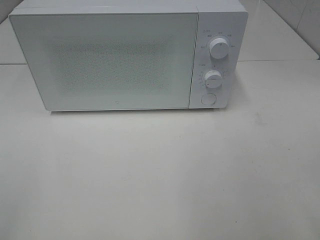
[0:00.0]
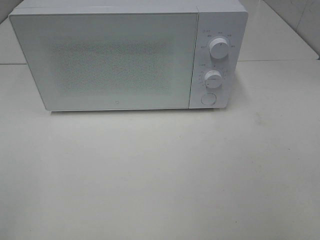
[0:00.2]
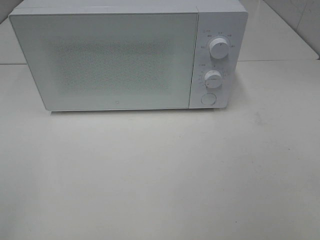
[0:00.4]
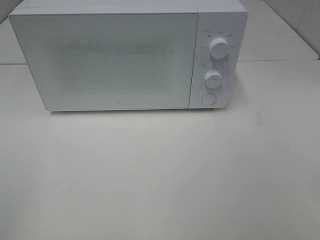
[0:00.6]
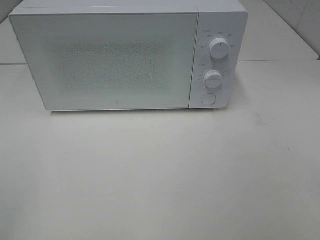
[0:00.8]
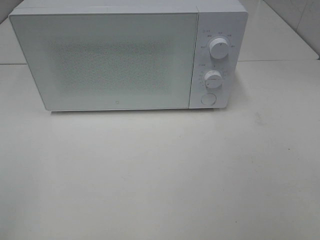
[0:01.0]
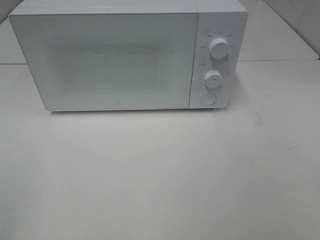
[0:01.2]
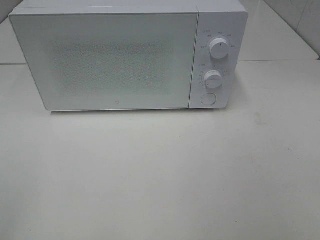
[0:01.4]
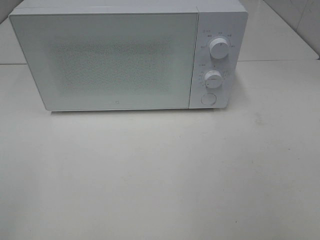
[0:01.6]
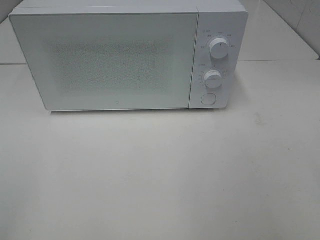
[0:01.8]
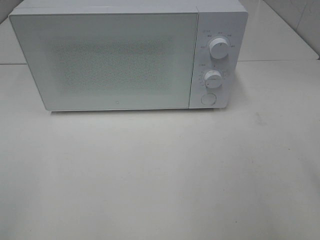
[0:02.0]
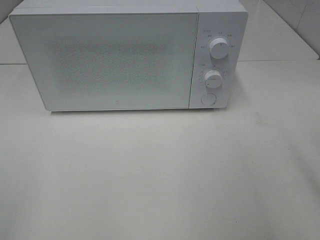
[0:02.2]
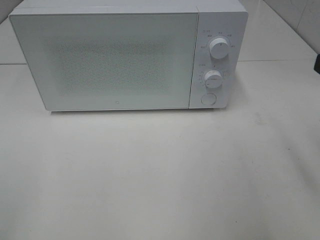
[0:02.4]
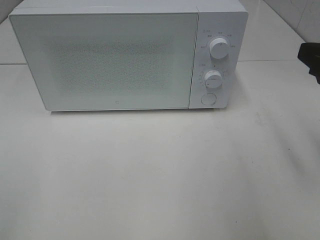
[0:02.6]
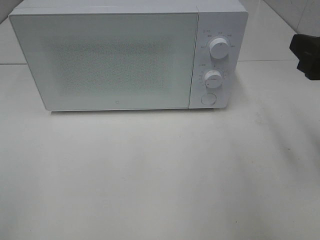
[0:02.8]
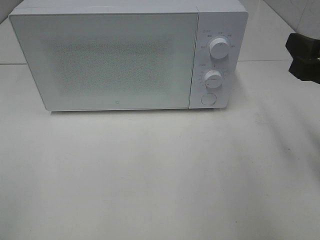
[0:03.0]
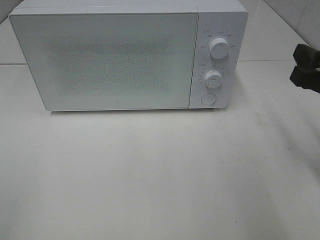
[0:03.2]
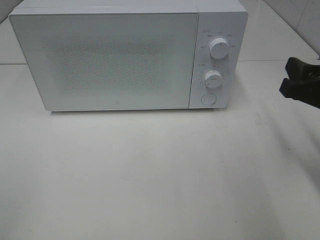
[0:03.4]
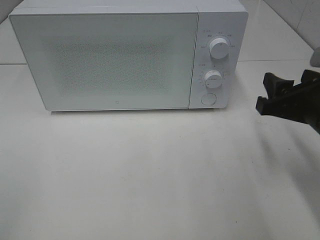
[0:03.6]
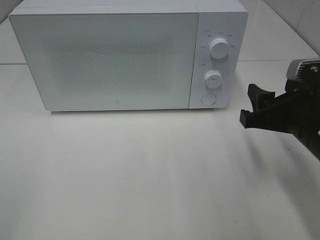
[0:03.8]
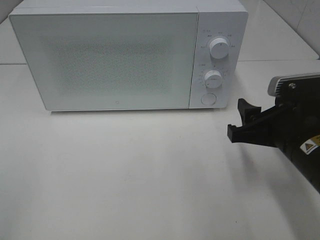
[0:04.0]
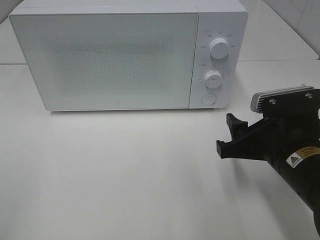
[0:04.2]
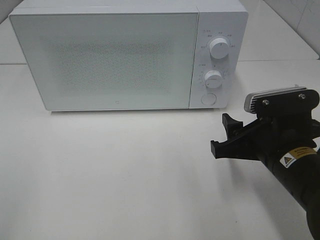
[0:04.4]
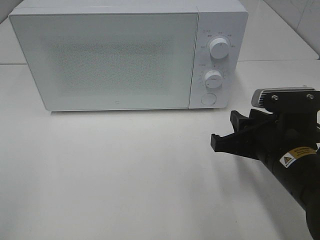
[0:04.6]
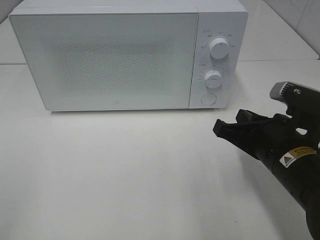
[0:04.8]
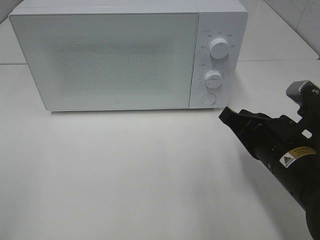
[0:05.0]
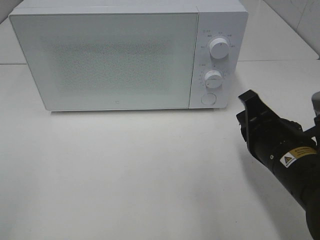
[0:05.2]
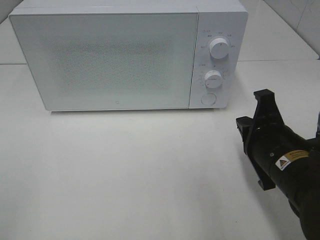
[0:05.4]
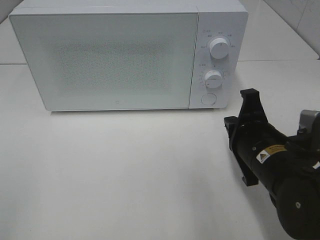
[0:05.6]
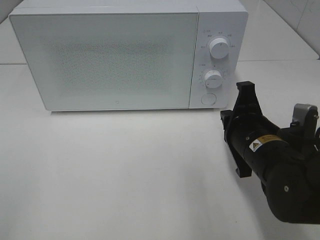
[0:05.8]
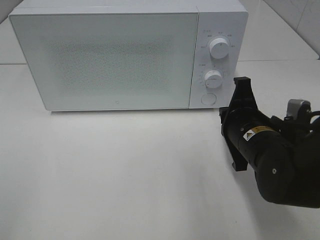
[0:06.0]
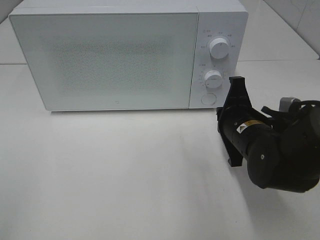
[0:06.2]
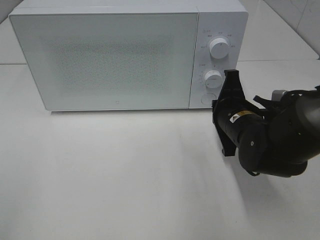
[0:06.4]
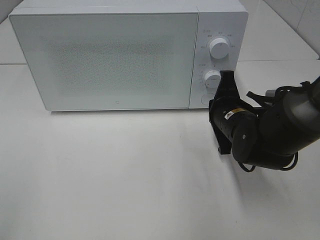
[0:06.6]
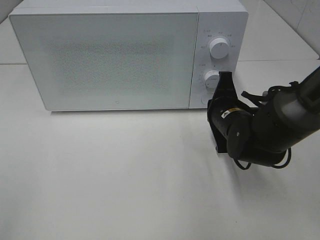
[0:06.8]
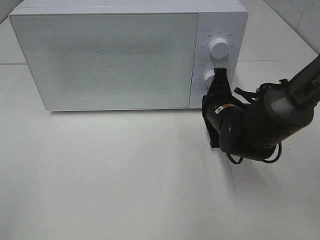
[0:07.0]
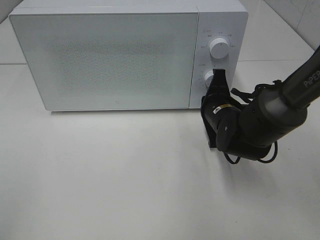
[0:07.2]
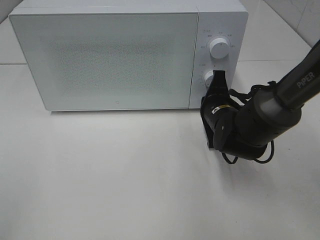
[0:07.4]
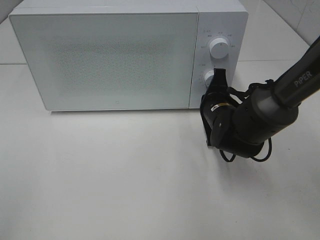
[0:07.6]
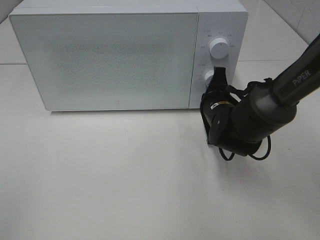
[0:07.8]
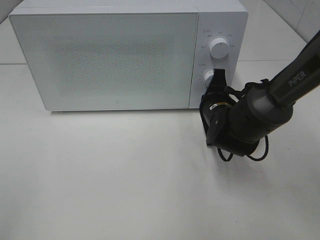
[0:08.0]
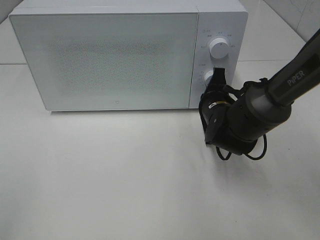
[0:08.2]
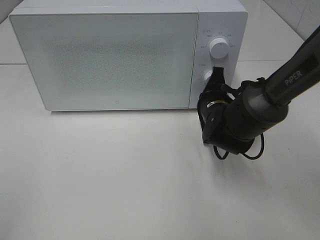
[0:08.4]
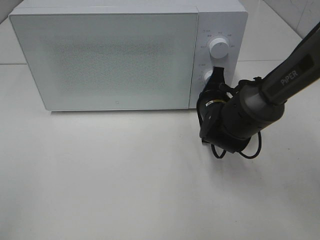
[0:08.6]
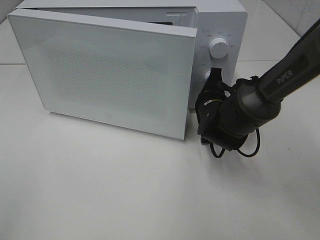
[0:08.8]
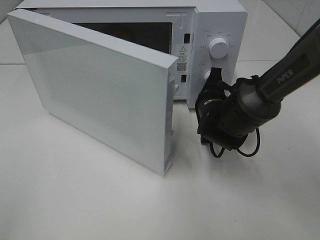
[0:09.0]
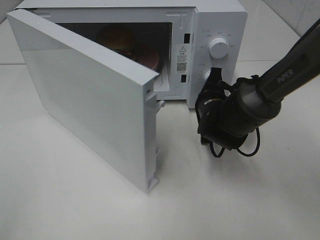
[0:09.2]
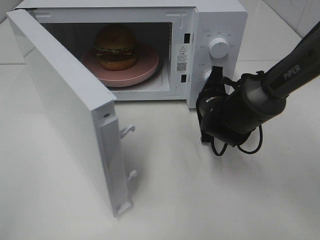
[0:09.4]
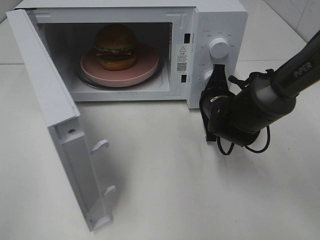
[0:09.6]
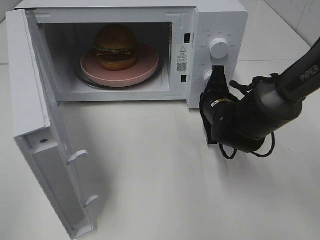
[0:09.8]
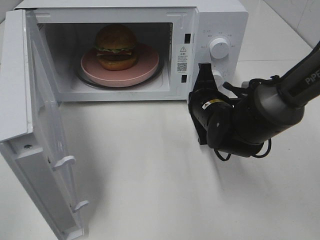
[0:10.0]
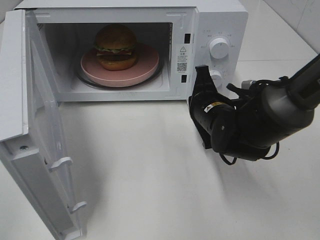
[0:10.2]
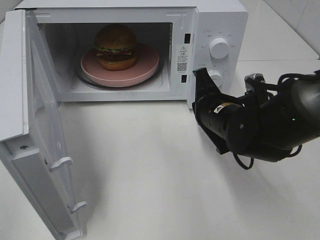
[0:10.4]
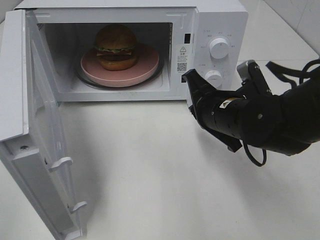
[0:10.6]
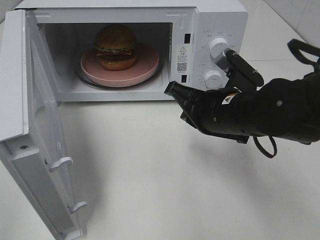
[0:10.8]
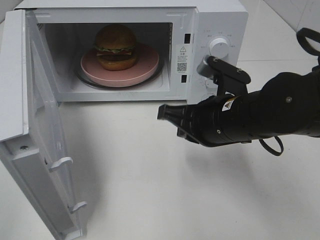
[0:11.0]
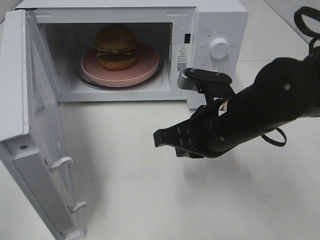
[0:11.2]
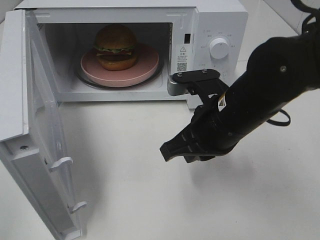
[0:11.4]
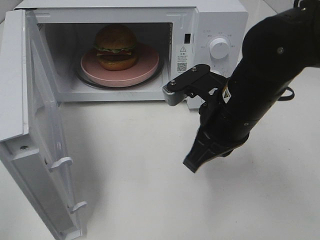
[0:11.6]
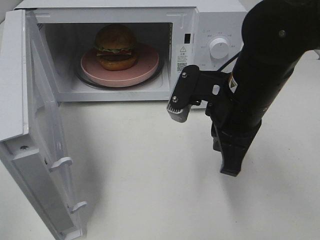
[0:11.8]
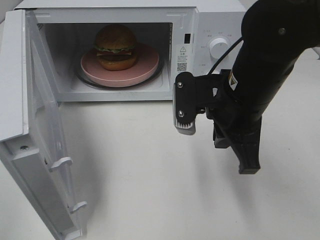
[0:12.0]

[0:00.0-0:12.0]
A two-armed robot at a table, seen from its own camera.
Task of the whole recording: Heat the burger.
Step, 0:00.0 to 0:09.8: Right hand: press the switch.
0:01.6 to 0:03.0: The right gripper moves forward, some 20 cm.
0:03.0 to 0:04.4: The right gripper shifts roughly 15 cm downward and to the left.
0:04.4 to 0:06.0: The right gripper is displaced forward by about 5 cm, and closes its fingers.
0:06.0 to 0:07.6: The right gripper shifts some 10 cm forward.
0:09.0 to 0:10.4: The right gripper travels backward by about 5 cm.
0:10.4 to 0:12.0: The right gripper moves upward, approximately 10 cm.

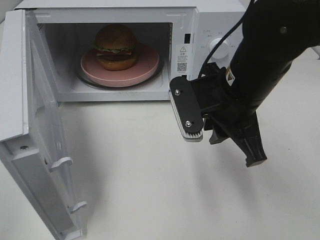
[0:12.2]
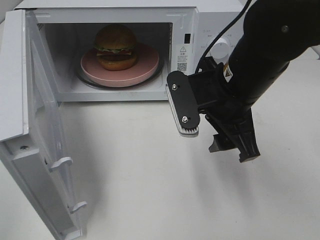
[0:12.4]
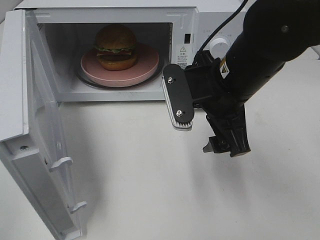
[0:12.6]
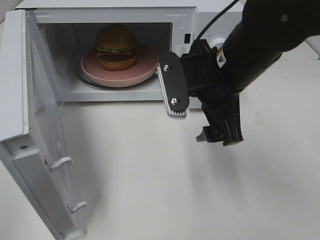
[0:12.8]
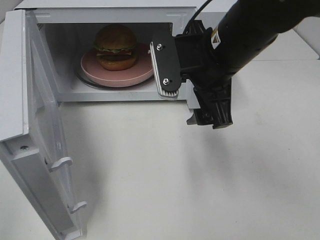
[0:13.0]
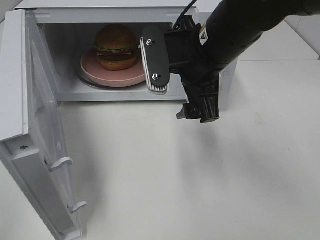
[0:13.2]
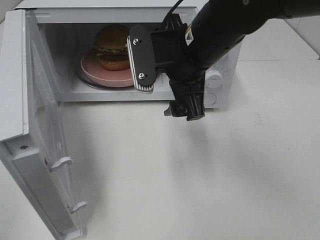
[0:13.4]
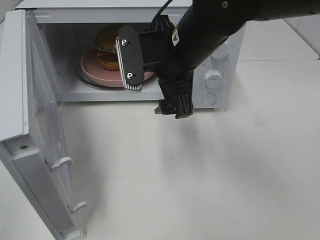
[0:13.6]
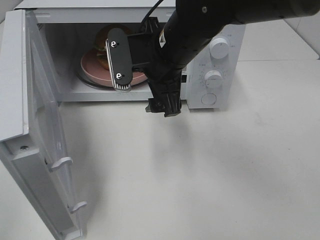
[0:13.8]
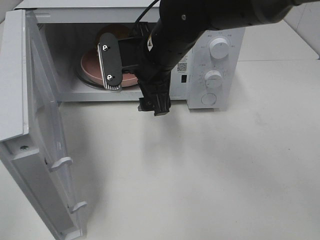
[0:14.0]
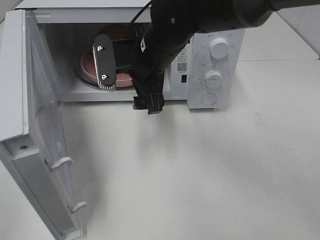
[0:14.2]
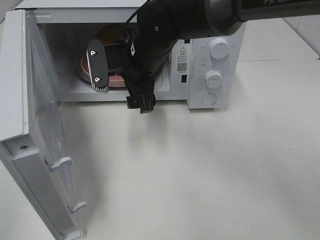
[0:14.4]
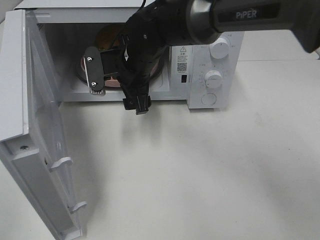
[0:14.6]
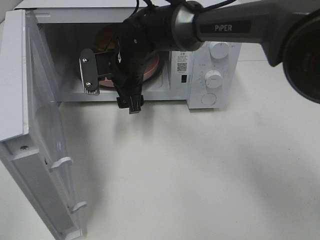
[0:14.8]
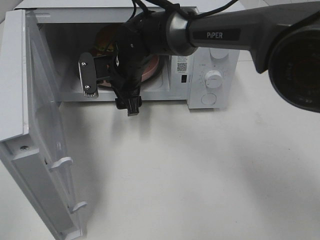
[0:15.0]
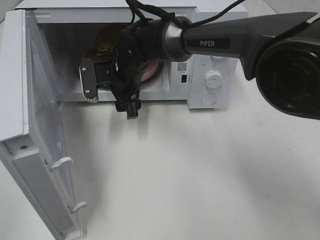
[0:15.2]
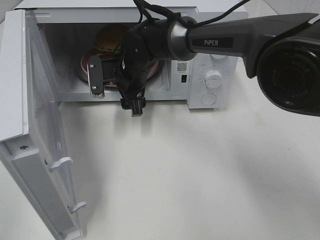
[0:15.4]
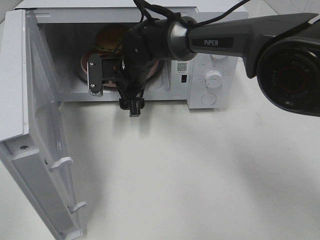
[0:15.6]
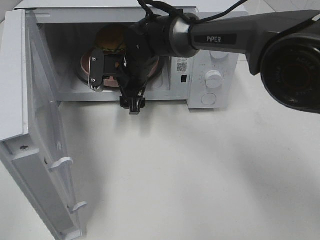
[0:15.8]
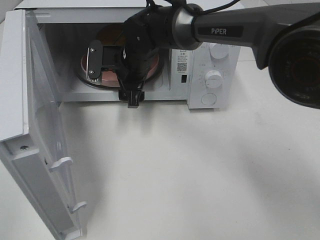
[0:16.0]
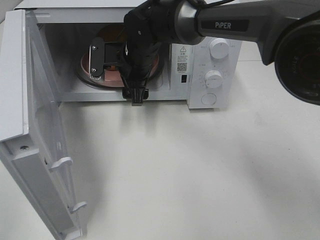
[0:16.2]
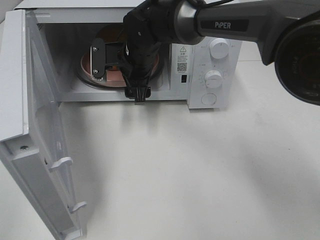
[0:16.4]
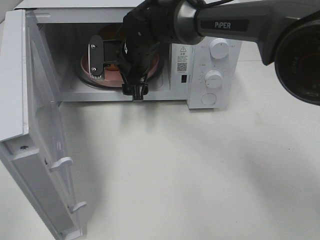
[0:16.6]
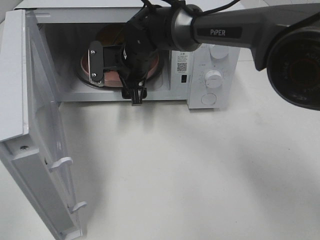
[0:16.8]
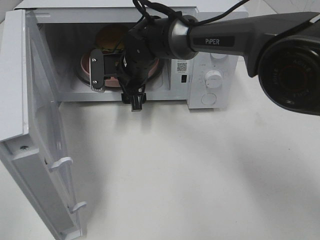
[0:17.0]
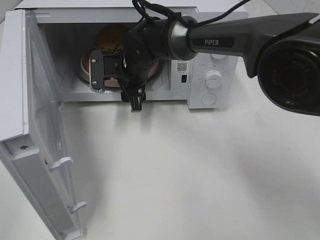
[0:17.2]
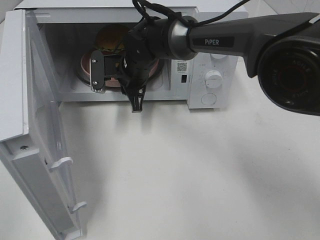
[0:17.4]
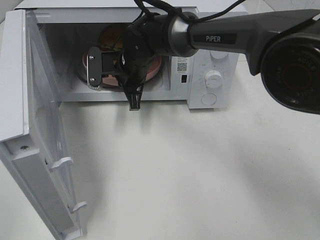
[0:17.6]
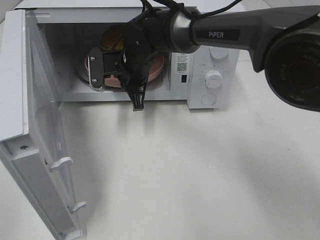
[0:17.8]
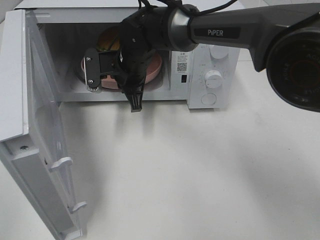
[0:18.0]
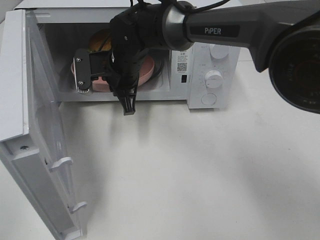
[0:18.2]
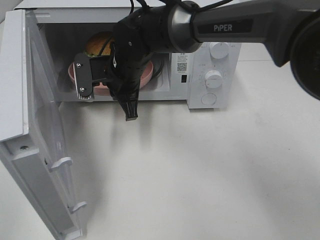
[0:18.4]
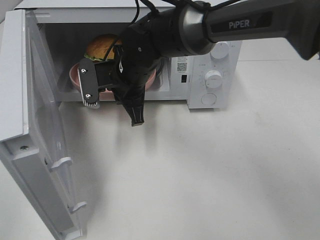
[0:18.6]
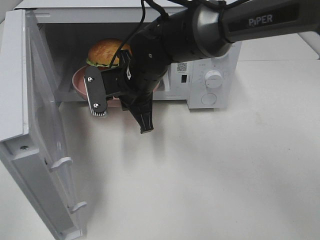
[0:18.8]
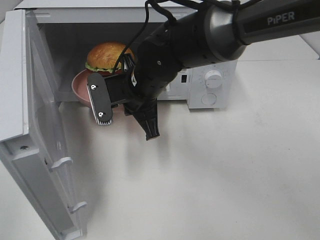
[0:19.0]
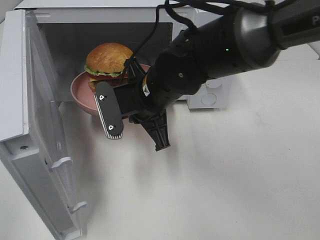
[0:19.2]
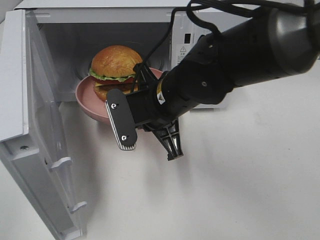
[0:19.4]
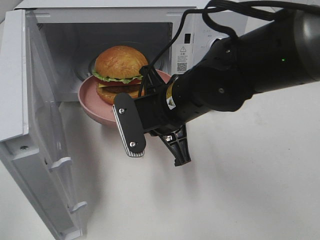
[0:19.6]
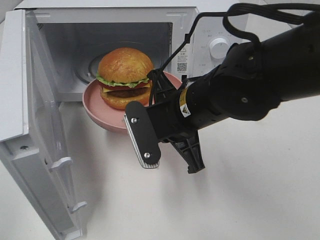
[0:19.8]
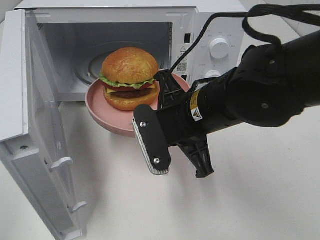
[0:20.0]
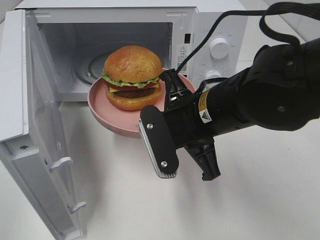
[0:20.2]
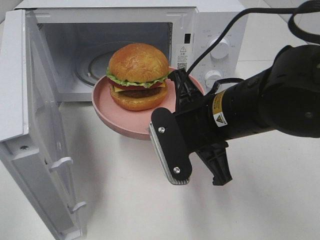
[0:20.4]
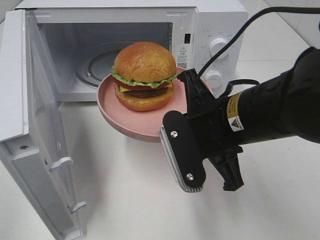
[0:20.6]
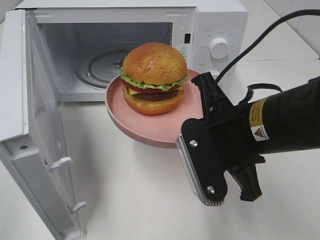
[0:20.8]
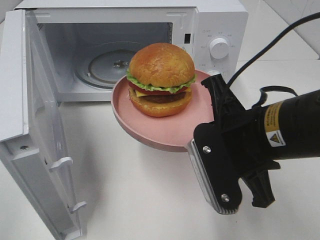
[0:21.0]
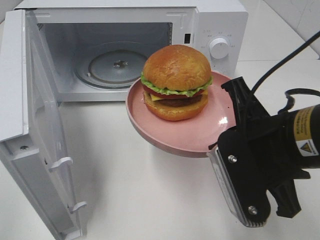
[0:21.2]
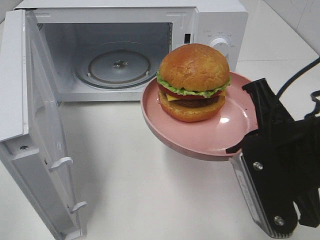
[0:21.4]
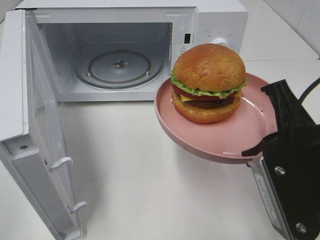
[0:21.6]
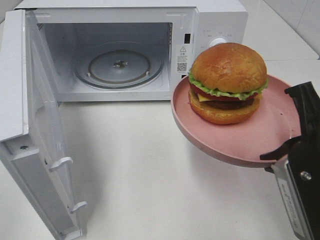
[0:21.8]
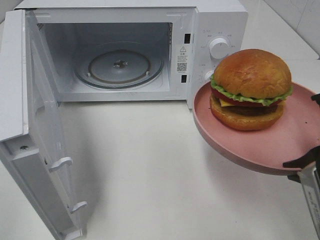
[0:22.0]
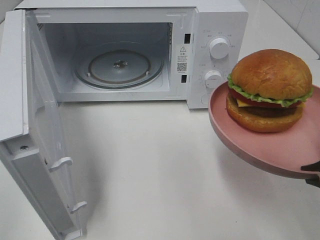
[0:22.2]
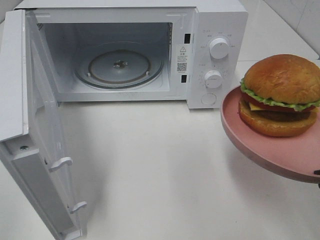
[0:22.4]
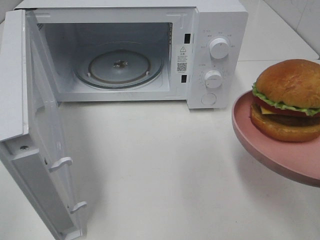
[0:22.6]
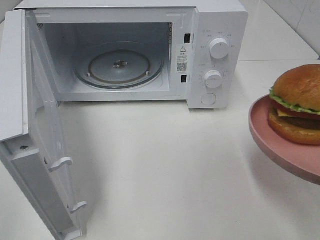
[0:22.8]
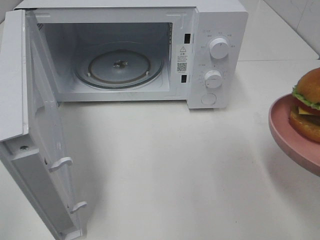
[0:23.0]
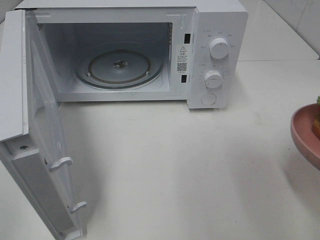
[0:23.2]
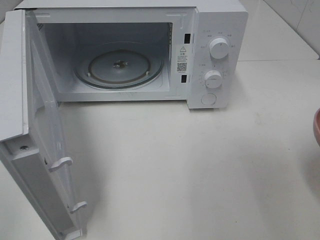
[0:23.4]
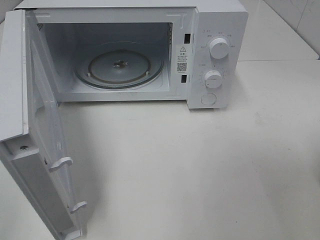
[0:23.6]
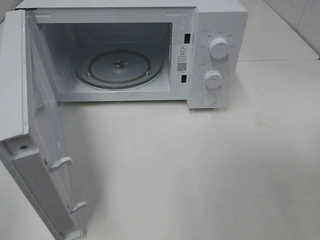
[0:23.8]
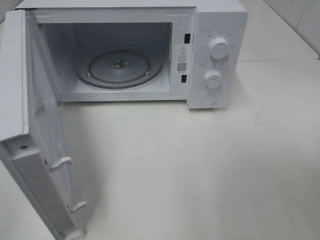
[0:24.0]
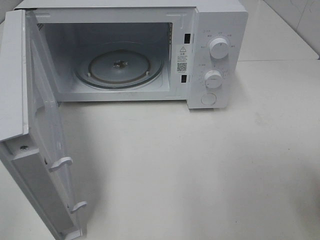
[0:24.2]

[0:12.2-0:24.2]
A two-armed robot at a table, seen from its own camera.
Task of the whole recording: Heat the burger.
Step, 0:12.2 to 0:17.6: Right hand: grab the plate with the hamburger.
0:12.2 to 0:13.8: The right gripper heads to the left and forward, covering some 10 cm, and opens up.
0:13.8 to 0:15.2: The right gripper goes some 15 cm forward, downward and to the left.
0:15.2 to 0:16.6: The grippers stay close to where they were, moving slightly.
0:16.6 to 0:18.2: The right gripper closes its fingers.
0:18.2 to 0:19.8: The right gripper heads backward and to the right, covering about 20 cm.
0:19.8 to 0:21.2: The right gripper moves to the right and backward, about 15 cm.
0:21.2 to 0:22.6: The right gripper moves to the right and backward, about 10 cm.
